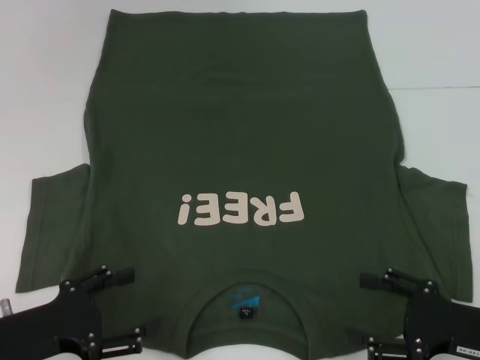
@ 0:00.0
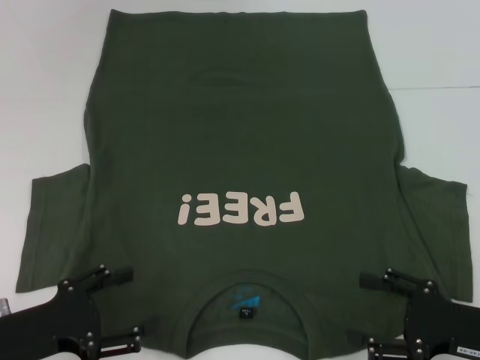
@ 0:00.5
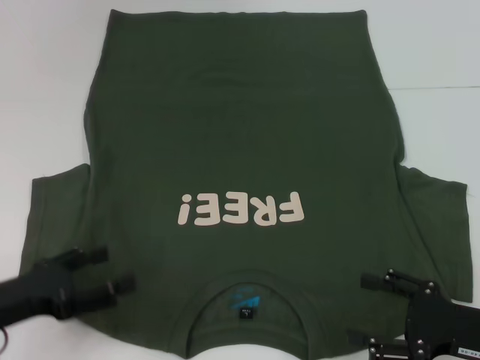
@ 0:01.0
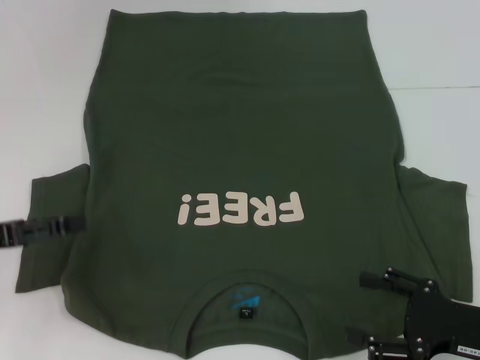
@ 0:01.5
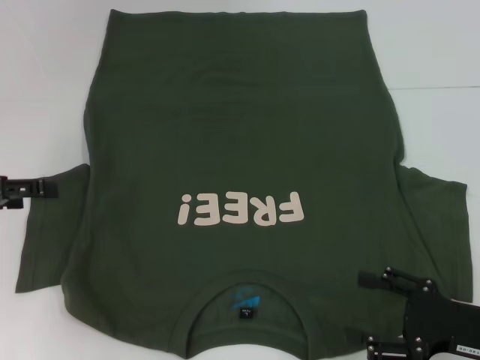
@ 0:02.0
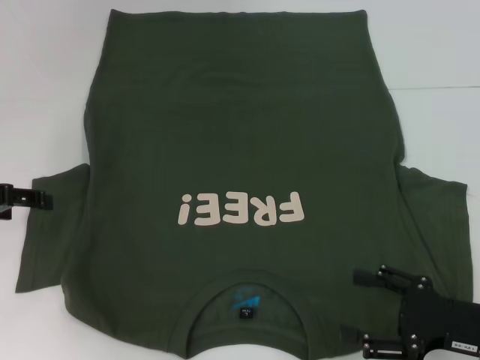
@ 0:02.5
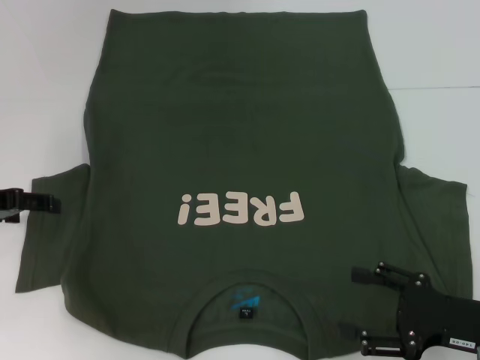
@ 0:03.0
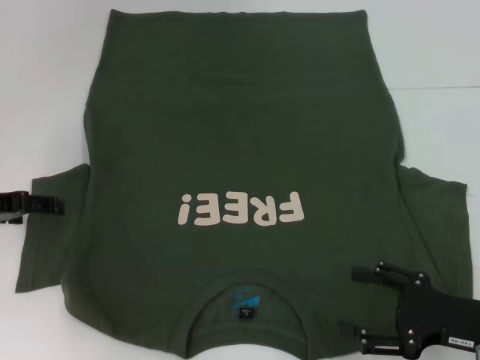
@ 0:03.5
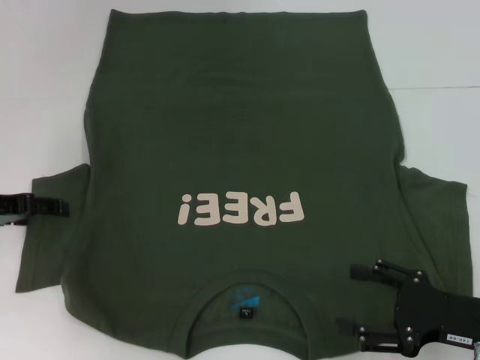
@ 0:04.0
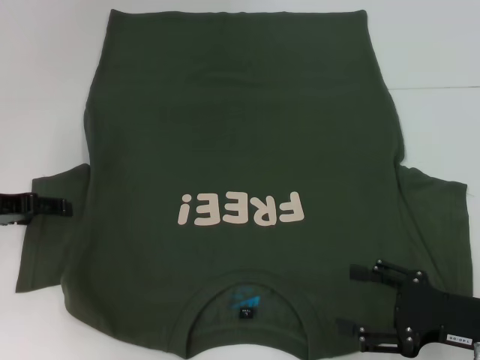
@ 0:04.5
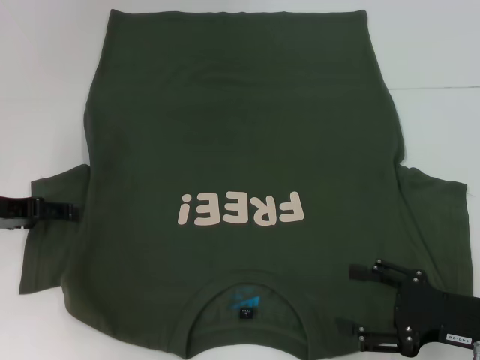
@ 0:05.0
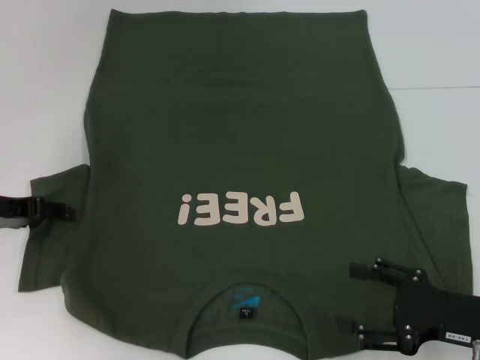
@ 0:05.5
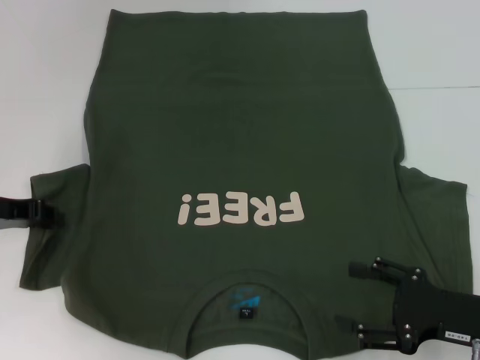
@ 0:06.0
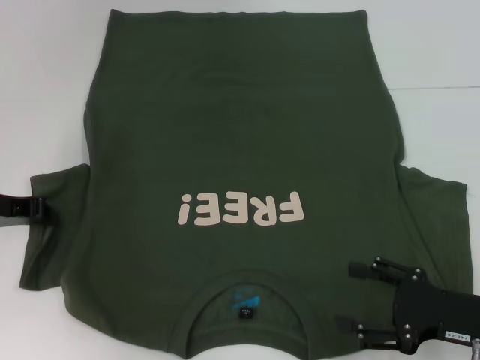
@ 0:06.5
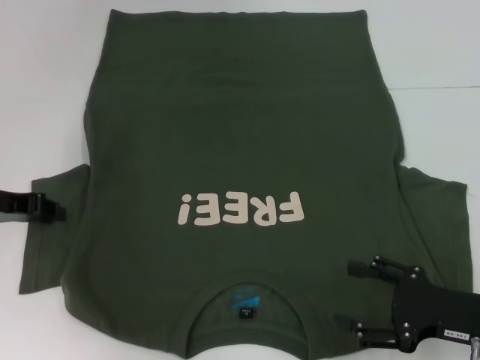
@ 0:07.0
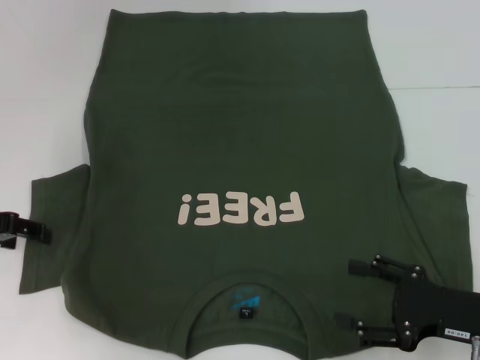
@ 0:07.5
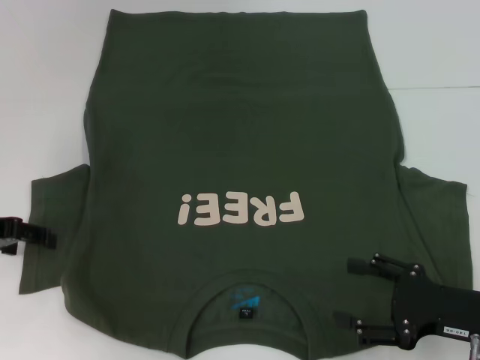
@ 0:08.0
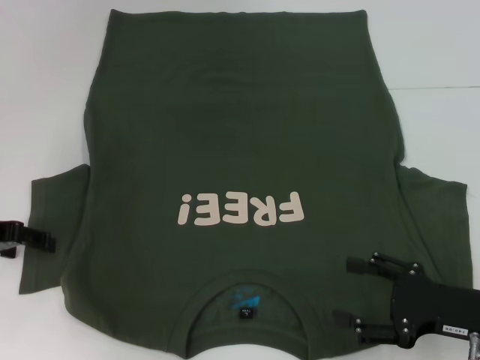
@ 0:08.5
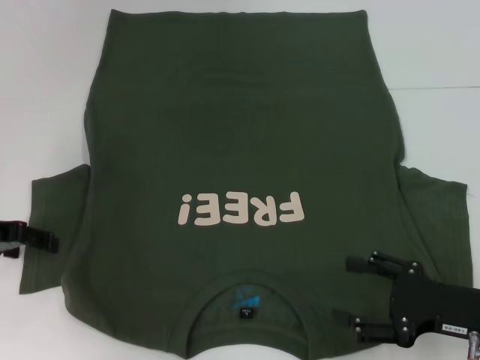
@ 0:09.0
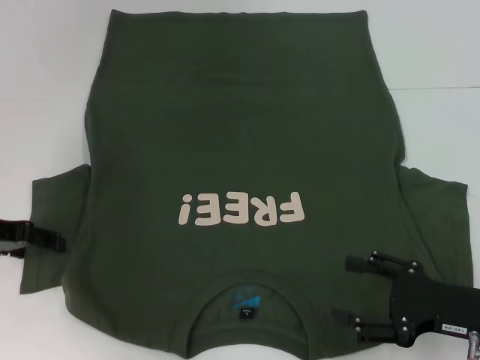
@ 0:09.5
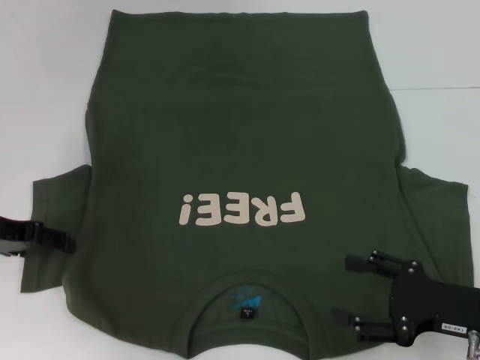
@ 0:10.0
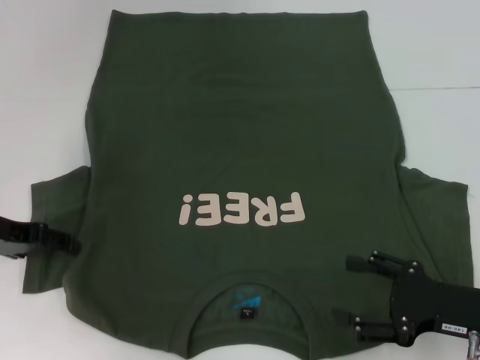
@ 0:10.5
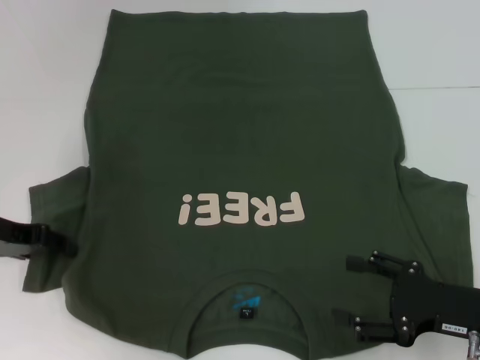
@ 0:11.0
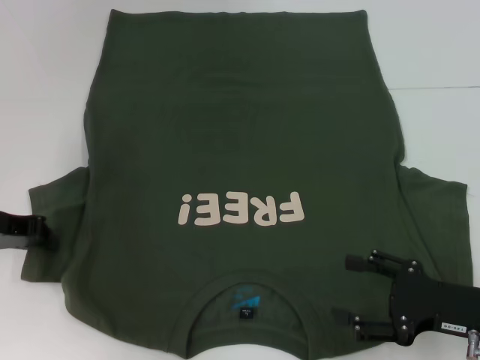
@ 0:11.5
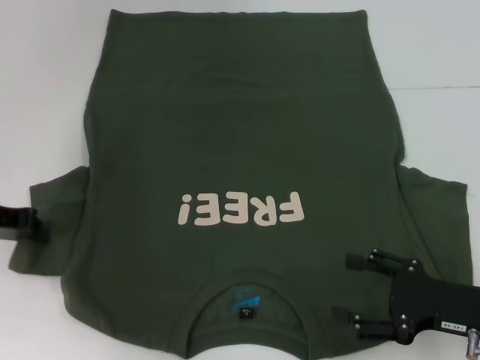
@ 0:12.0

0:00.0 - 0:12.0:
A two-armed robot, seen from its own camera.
0:00.0 - 0:02.0: The left gripper moves forward, upward and to the left, some 15 cm.
0:02.0 - 0:04.0: The left gripper moves roughly 5 cm.
0:04.0 - 0:06.0: The left gripper closes up.
0:06.0 - 0:08.0: The left gripper opens its fingers.
0:08.0 - 0:10.0: The grippers stay close to where they were, moving slightly.
0:10.0 - 0:12.0: The left gripper closes its fingers.

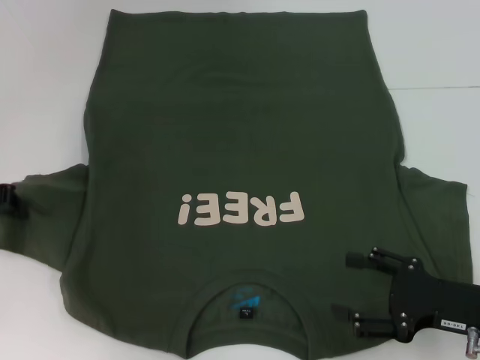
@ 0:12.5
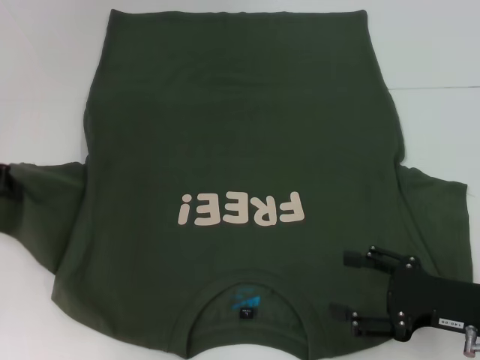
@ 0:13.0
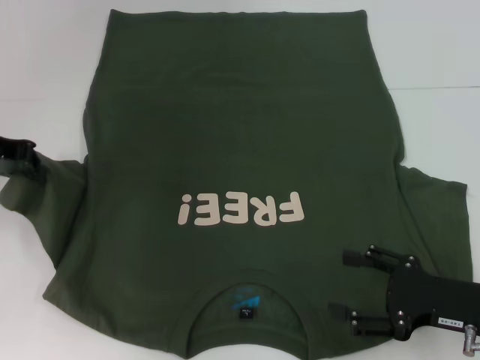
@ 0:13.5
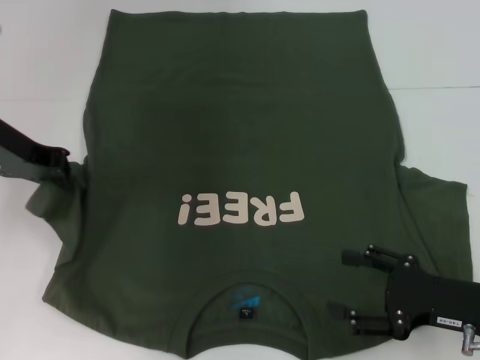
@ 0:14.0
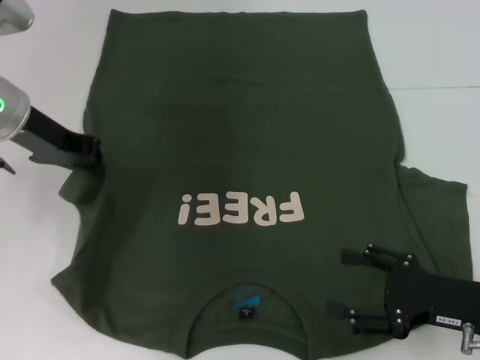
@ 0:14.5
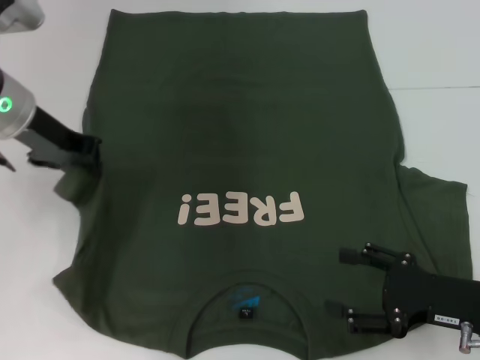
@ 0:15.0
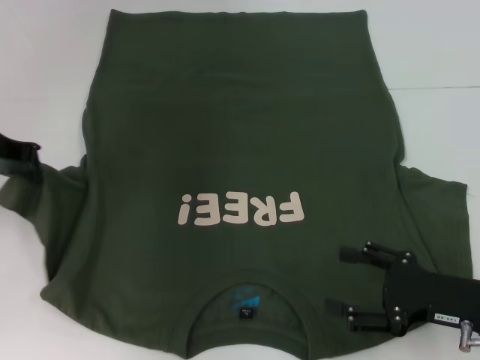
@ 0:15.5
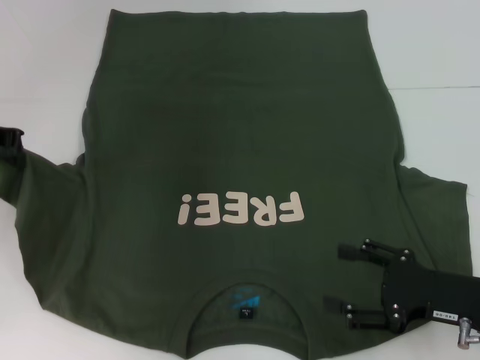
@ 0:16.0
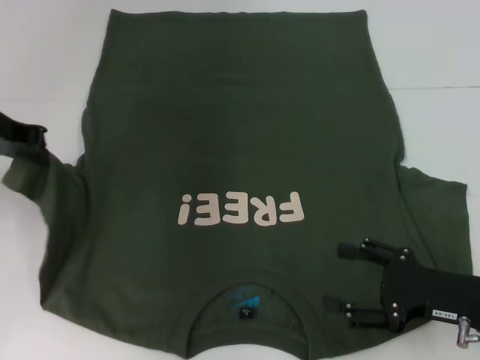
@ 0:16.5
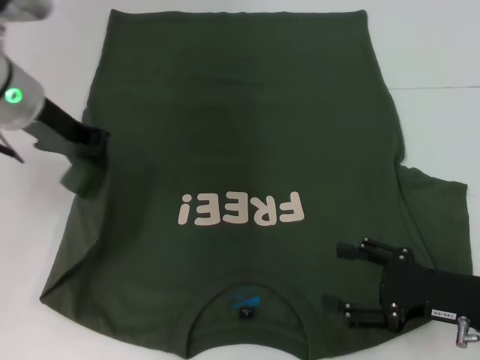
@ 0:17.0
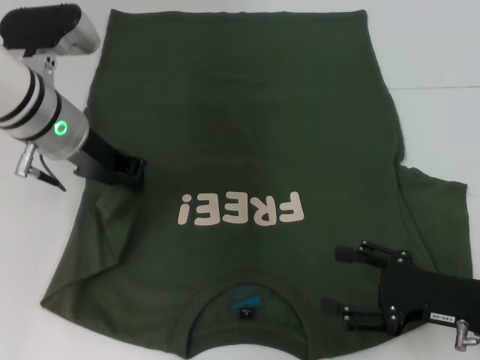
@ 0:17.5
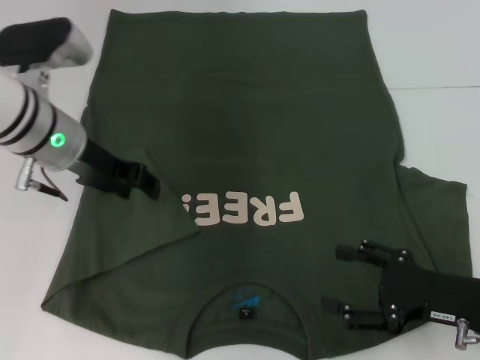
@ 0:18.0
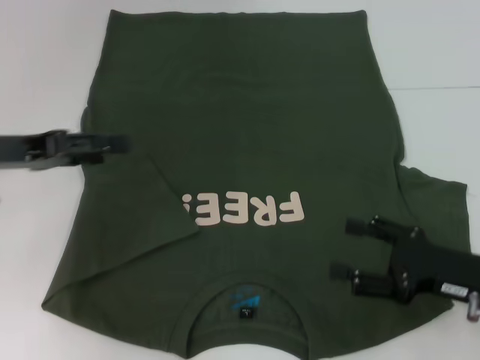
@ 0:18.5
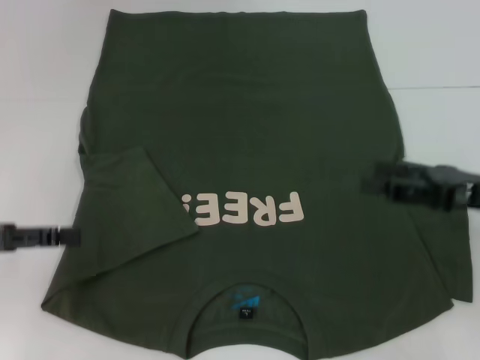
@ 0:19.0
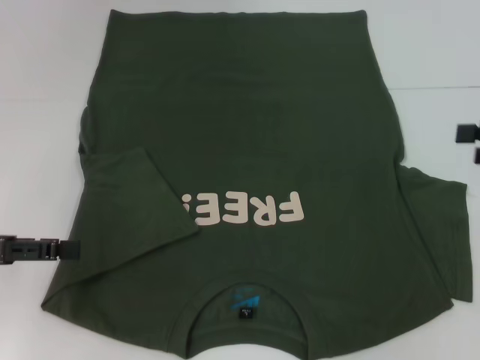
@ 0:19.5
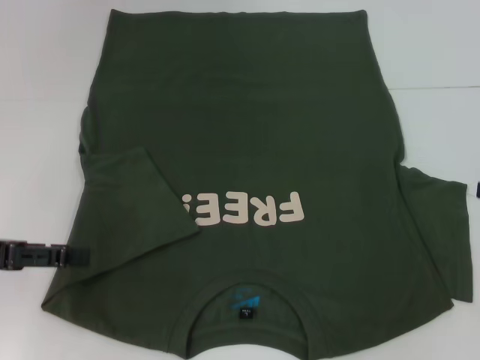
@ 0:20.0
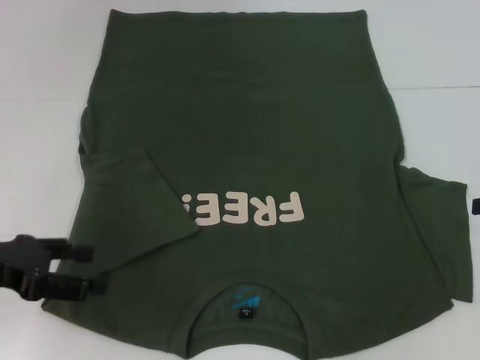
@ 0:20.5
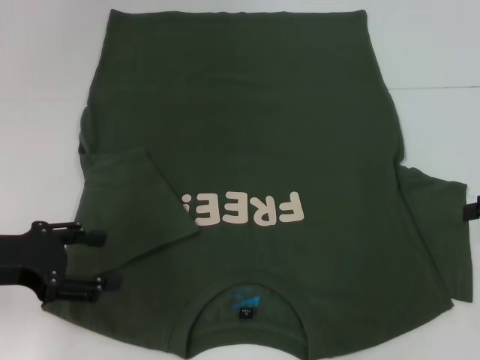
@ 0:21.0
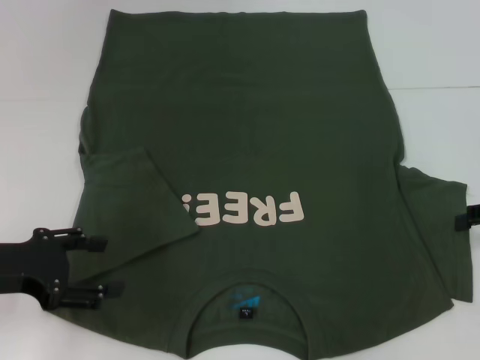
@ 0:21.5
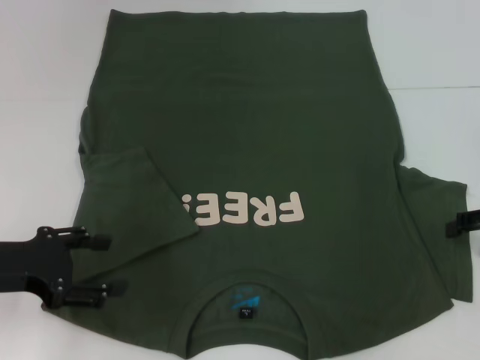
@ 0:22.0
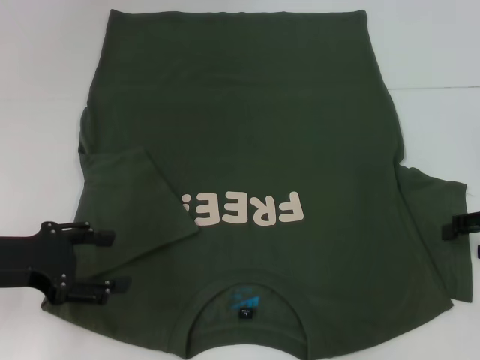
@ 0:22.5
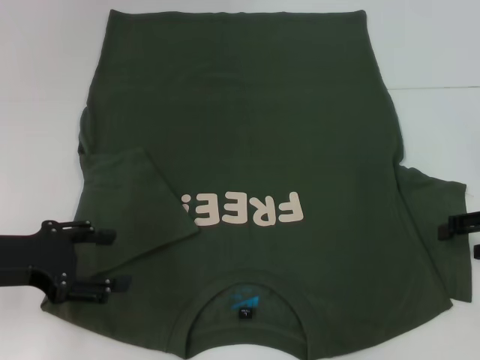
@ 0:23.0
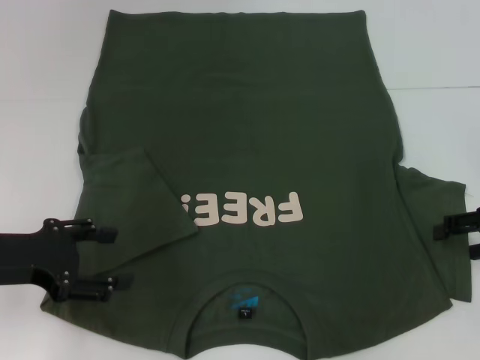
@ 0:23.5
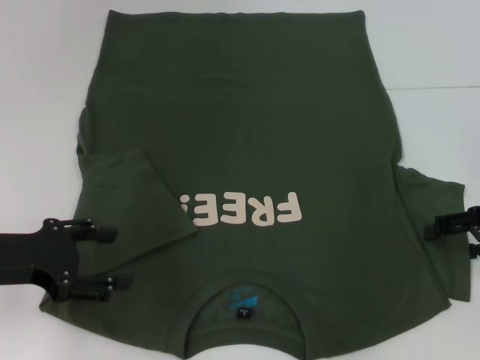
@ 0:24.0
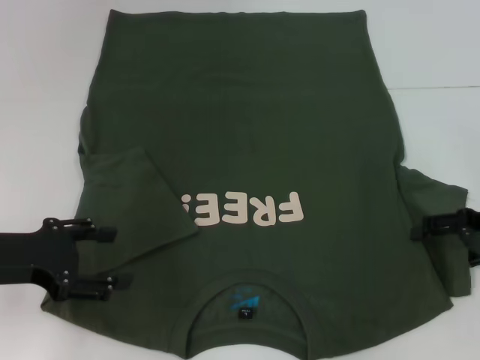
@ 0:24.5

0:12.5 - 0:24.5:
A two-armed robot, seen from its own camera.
Step, 0:12.5 - 0:17.5: Fold the bottom left sleeve with your left hand.
0:12.5 - 0:14.5: The left gripper heads to the right and upward, covering about 10 cm.
0:16.5 - 0:18.5: The left gripper moves backward, some 5 cm, reaches about 10 cm to the right, then returns, and opens its fingers.
0:18.5 - 0:20.5: The left gripper is displaced backward by about 5 cm, while the right gripper travels to the right, upward and forward by about 15 cm.
0:20.5 - 0:22.5: The grippers move only a little.
0:22.5 - 0:24.5: The grippers stay close to where they were, moving slightly.

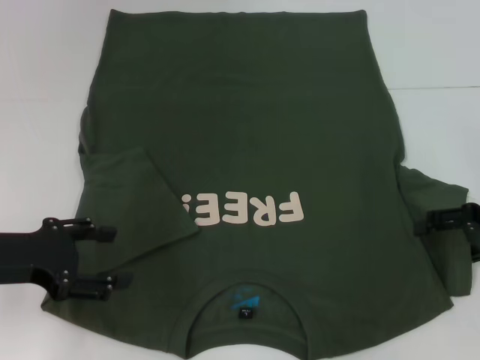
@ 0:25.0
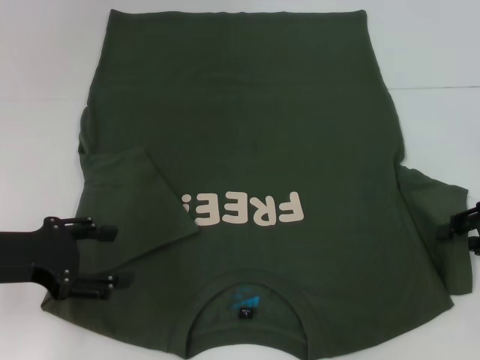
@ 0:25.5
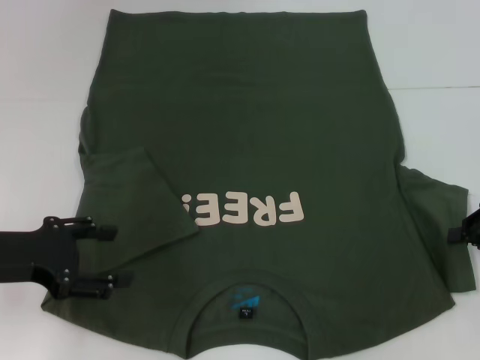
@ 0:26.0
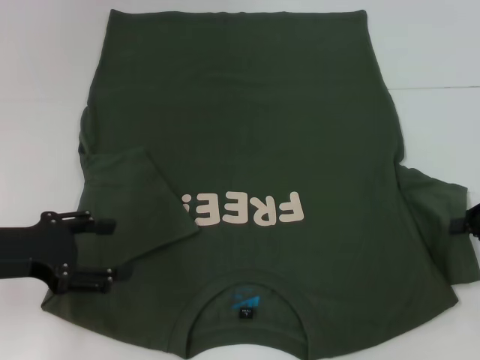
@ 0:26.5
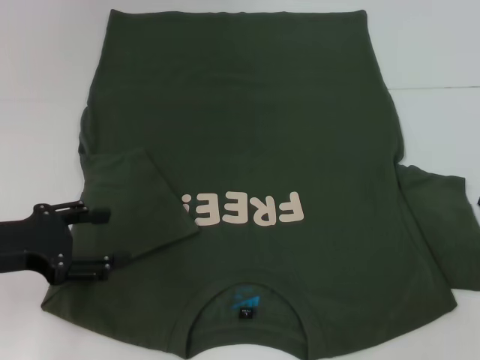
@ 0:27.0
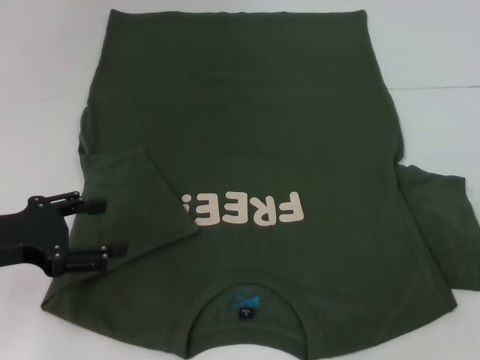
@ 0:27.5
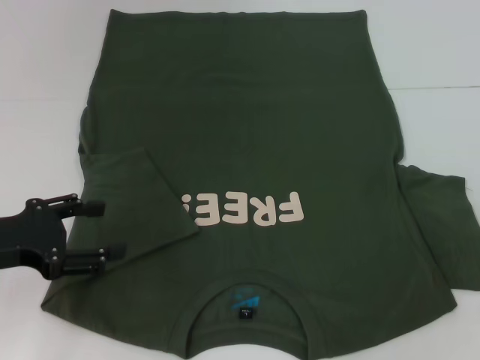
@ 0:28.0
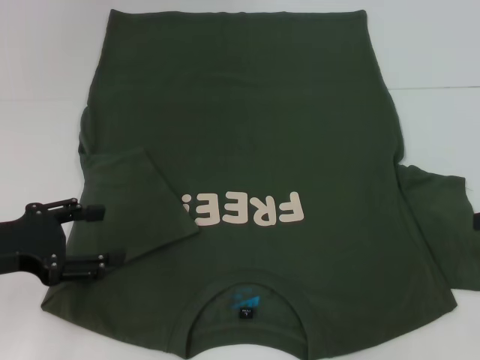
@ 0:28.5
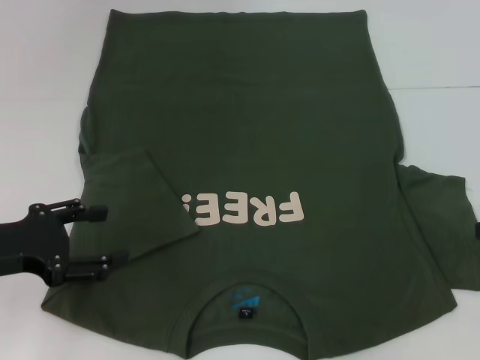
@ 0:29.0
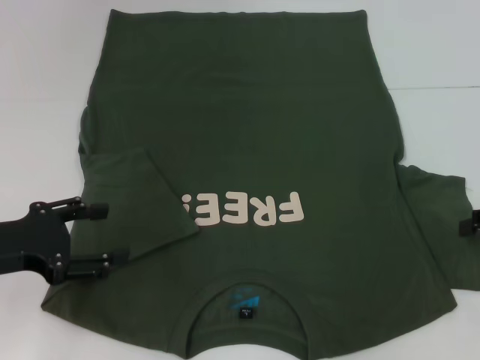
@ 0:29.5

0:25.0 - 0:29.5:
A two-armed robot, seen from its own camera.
0:25.0 - 0:27.0: The right gripper travels to the right by some 5 cm, and closes its fingers.
